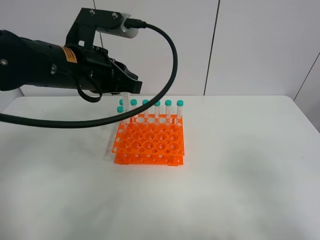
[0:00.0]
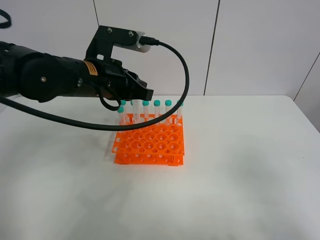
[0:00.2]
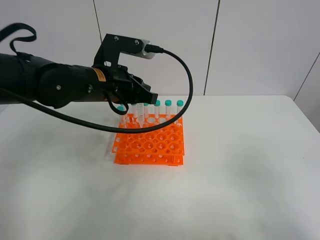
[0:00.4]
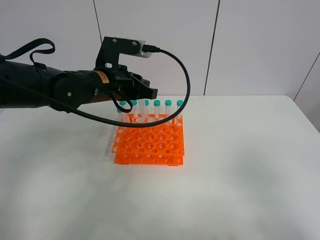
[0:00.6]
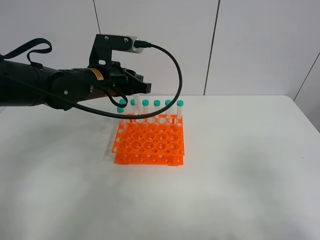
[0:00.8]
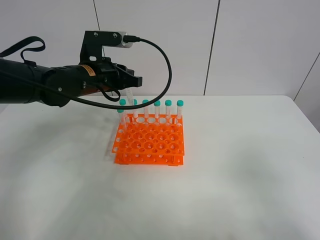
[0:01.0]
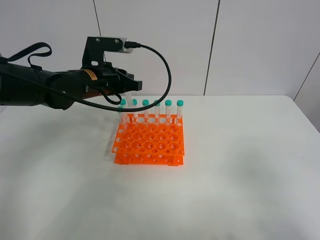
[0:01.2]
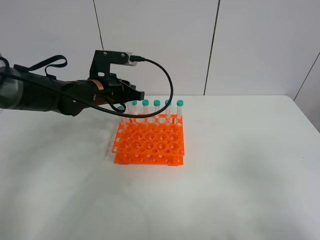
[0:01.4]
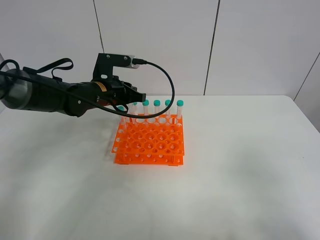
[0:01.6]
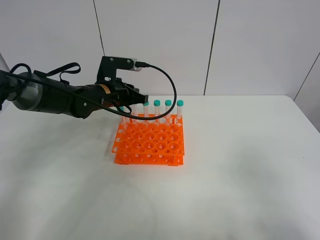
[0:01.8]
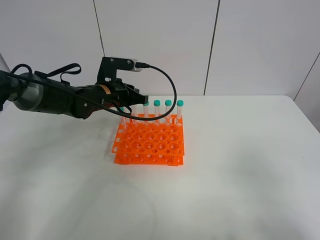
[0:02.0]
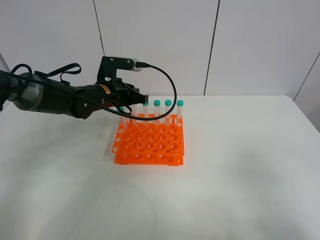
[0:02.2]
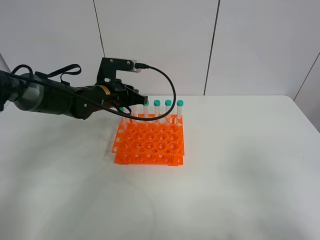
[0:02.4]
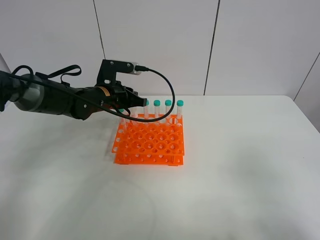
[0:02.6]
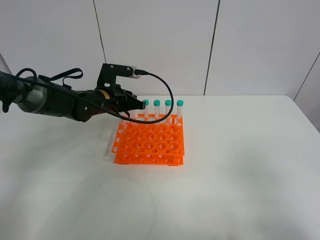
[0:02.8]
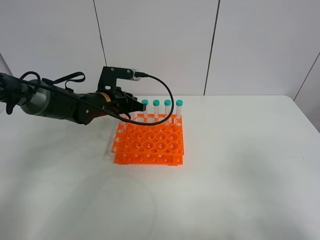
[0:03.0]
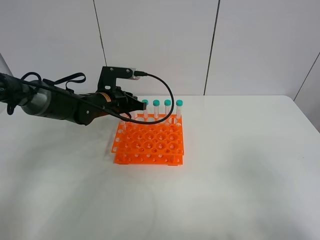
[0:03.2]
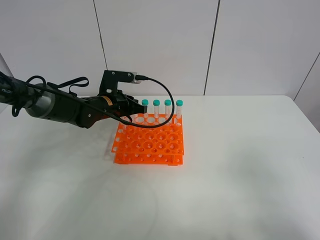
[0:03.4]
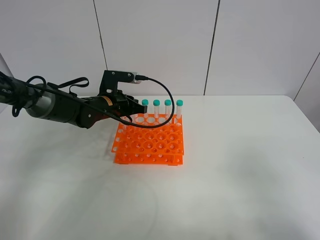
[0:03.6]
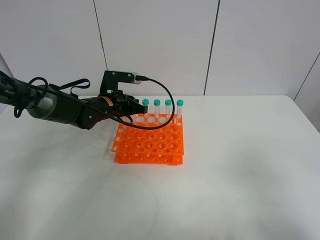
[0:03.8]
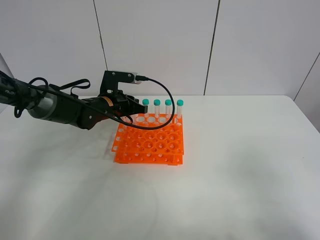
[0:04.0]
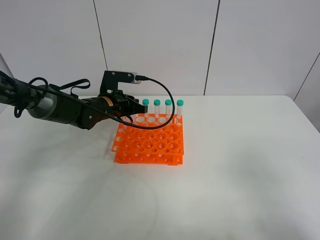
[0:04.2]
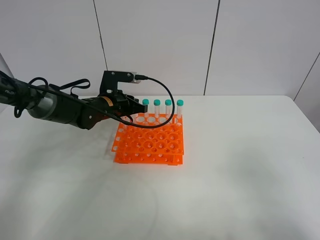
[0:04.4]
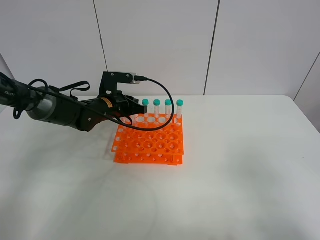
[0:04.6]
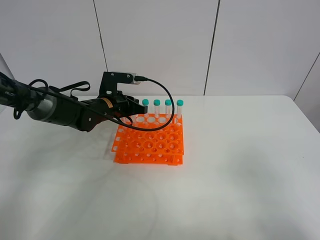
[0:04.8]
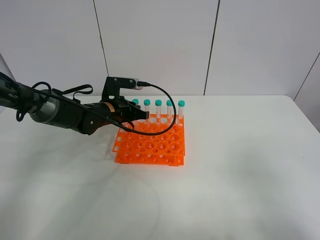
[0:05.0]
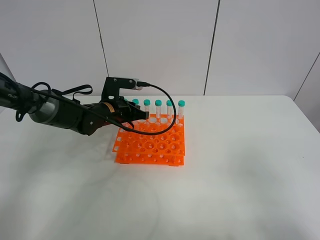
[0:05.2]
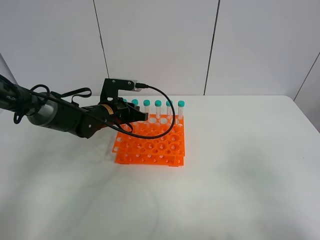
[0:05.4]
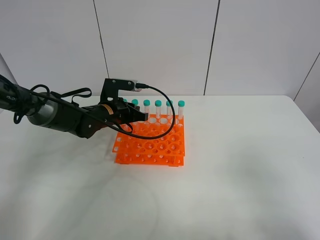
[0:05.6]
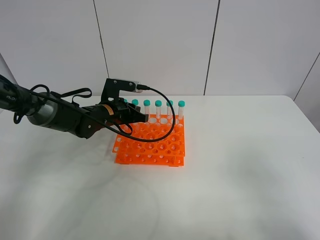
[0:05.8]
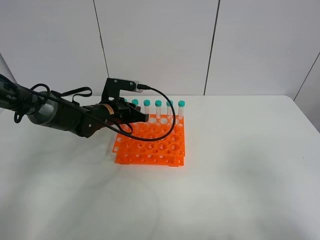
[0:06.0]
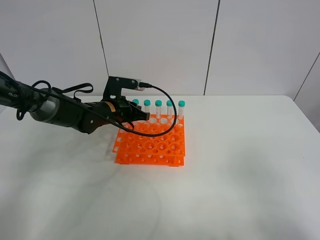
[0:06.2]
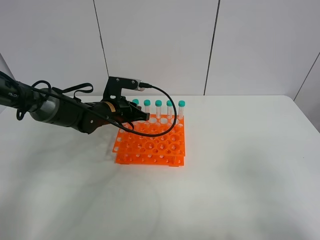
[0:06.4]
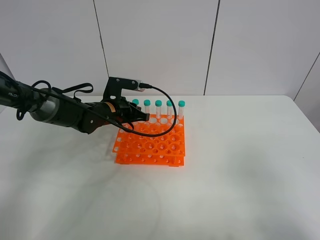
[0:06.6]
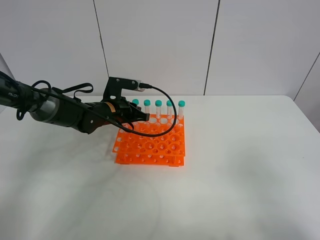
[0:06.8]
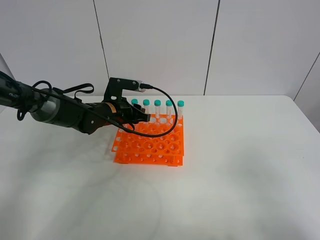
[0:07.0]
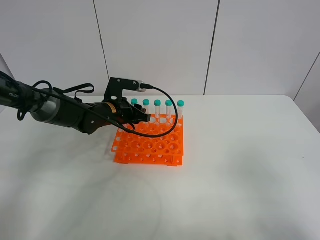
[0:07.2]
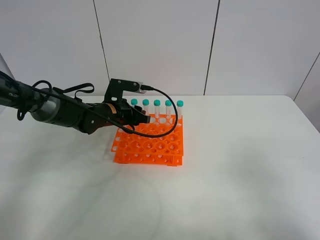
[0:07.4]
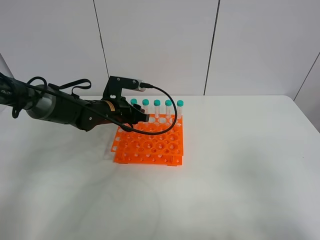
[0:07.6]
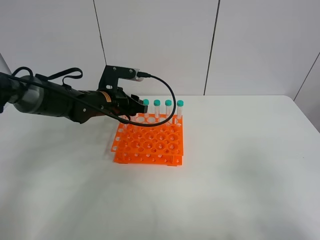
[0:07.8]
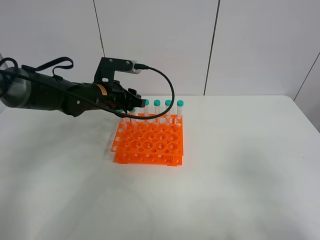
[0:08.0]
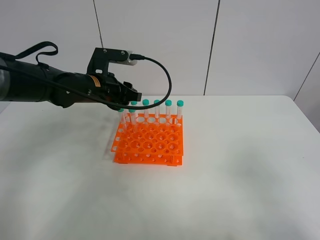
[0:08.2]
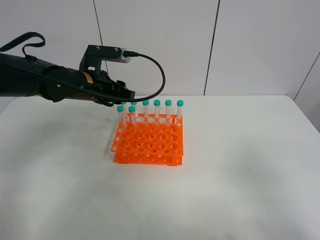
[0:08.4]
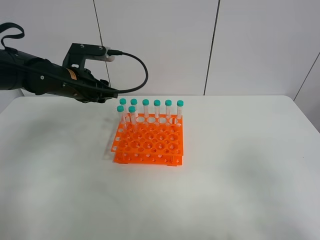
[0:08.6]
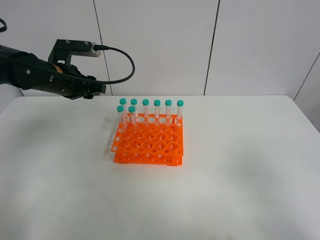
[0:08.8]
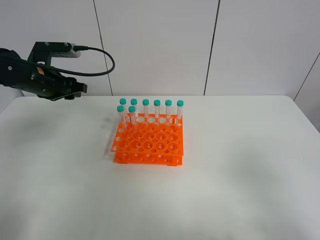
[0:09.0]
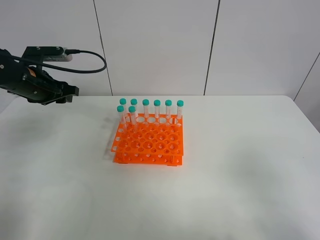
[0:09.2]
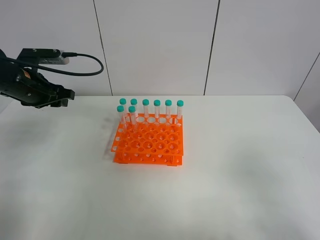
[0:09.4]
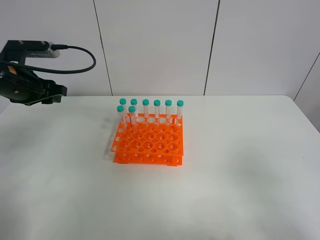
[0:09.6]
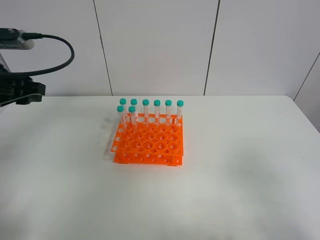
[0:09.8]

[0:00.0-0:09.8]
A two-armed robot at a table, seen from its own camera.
Task of the whole recording: Put the test tube on the table back onto the test tube rack.
Step, 0:00.0 to 0:08.6: Place the test tube on the test tube rack with the left gripper.
0:00.0 to 0:01.4: The left gripper moves downward and forward, some 15 cm.
0:01.4 to 0:02.8: The grippers stay close to where they were, moving slightly.
0:02.8 to 0:05.6: The grippers move only a little.
0:05.6 to 0:07.0: The left gripper opens up.
0:07.0 to 0:08.4: The left gripper is displaced upward by some 10 cm.
0:08.4 to 0:09.8: The left gripper moves to the left, backward and upward, approximately 20 cm.

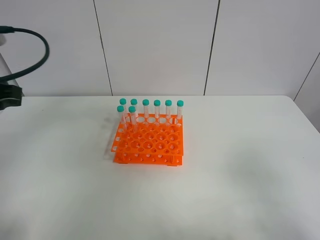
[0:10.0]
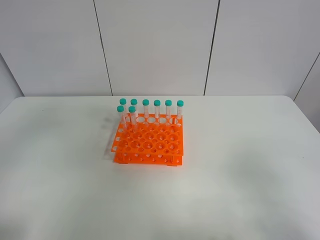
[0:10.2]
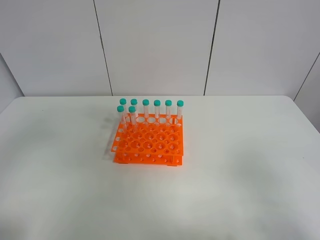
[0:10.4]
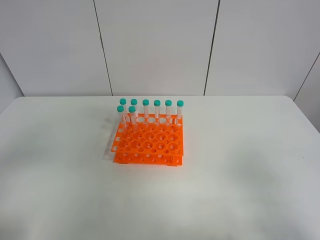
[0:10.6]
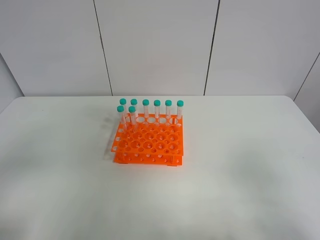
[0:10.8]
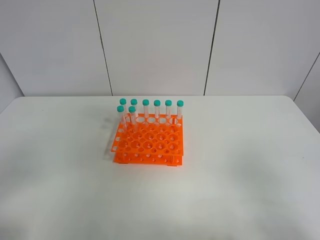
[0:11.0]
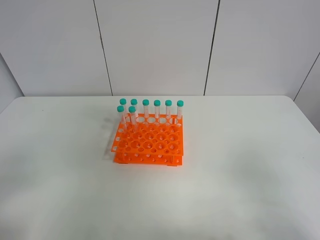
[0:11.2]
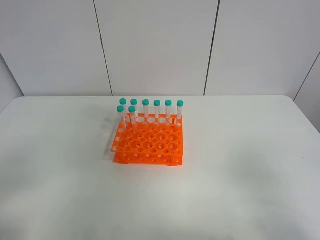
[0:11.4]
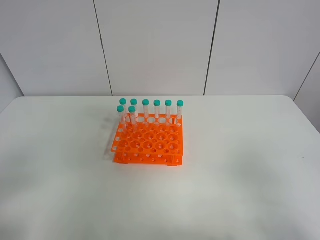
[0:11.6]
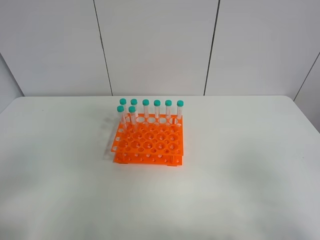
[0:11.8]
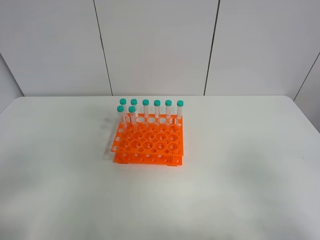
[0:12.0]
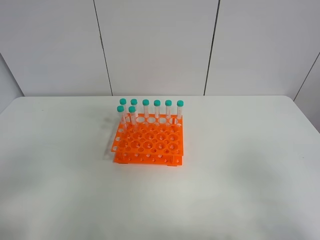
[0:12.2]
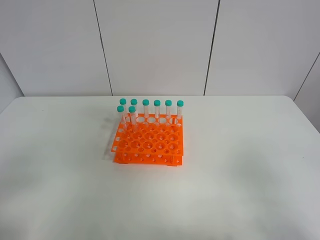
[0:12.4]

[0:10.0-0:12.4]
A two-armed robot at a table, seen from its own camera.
Task of the whole recording: Put the test tube on the table back onto the test tube rack.
0:10.0 to 0:11.2: The left gripper shifts approximately 20 cm backward.
0:11.2 to 0:12.4: The two grippers keep their place.
